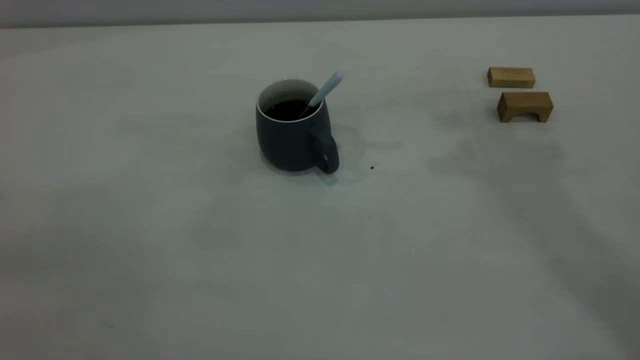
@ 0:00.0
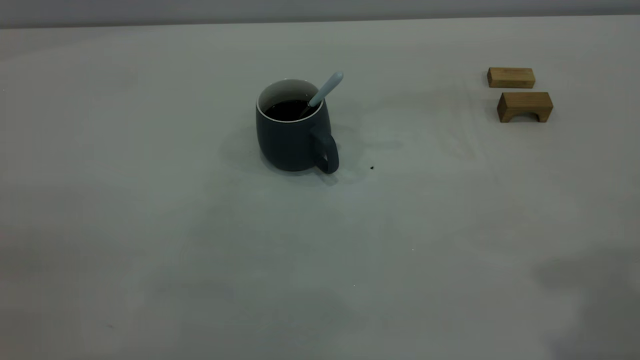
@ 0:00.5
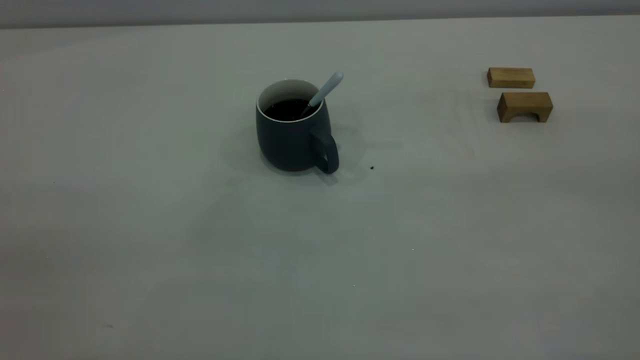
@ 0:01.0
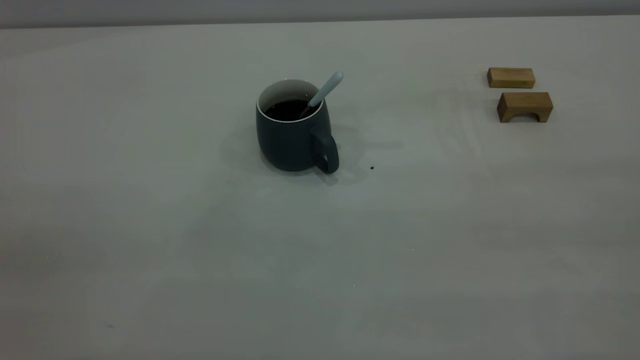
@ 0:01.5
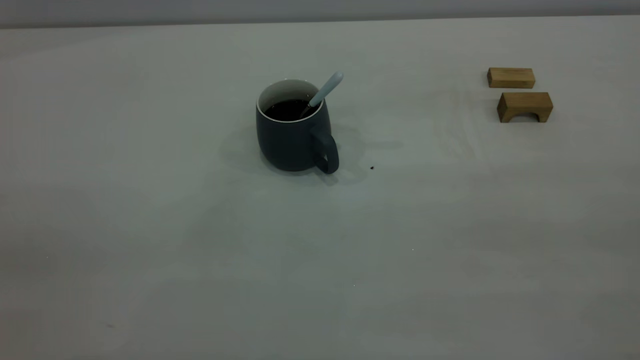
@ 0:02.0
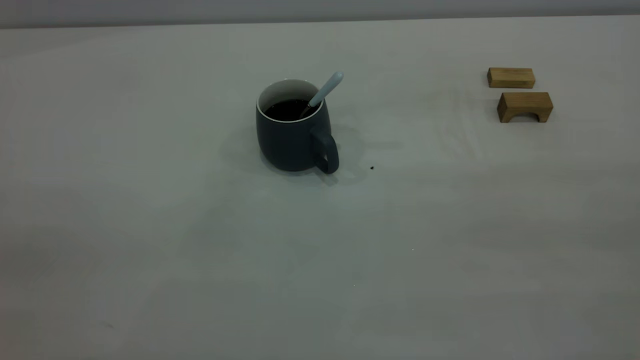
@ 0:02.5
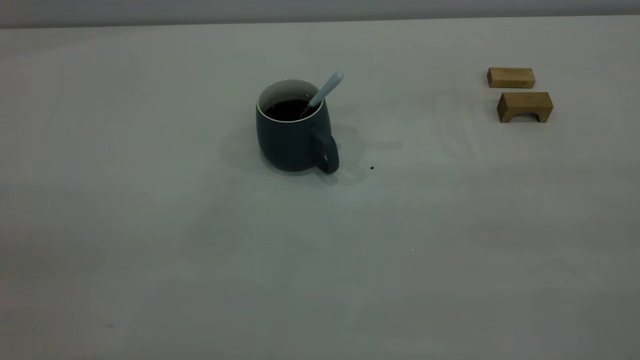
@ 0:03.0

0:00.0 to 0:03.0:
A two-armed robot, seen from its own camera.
0:01.5 to 0:03.0: The two grippers keep their place.
